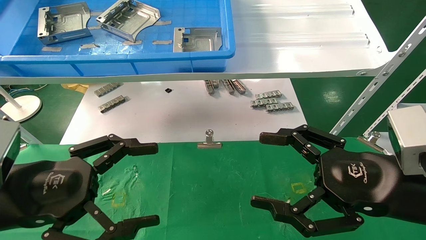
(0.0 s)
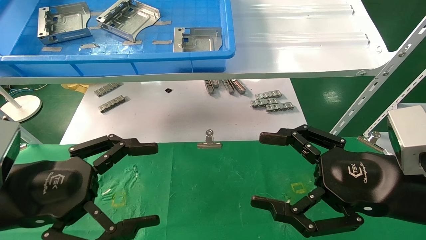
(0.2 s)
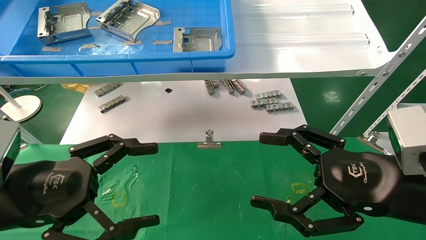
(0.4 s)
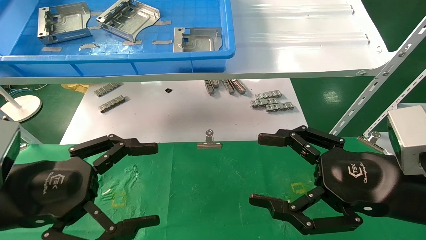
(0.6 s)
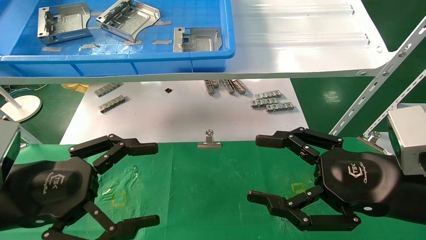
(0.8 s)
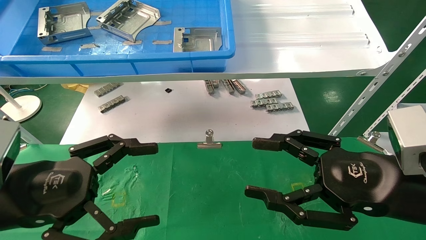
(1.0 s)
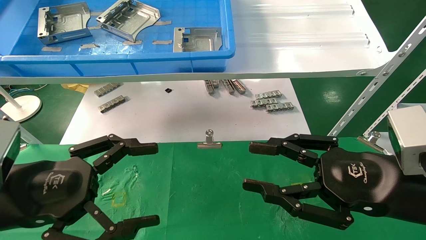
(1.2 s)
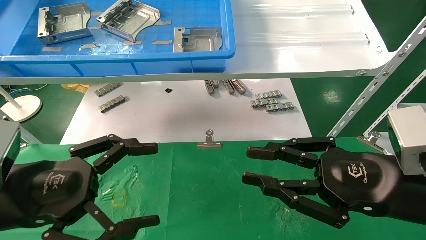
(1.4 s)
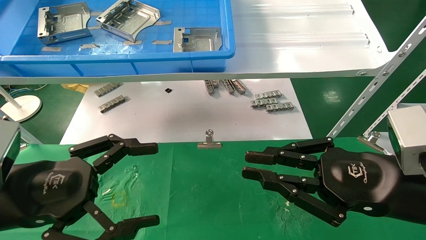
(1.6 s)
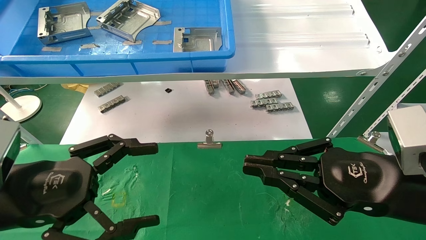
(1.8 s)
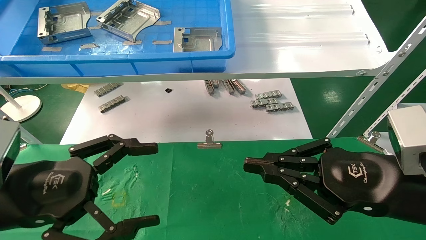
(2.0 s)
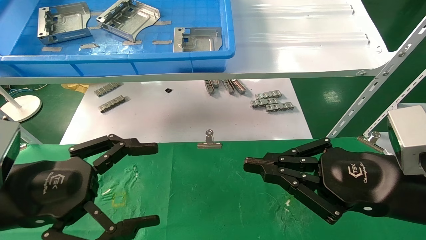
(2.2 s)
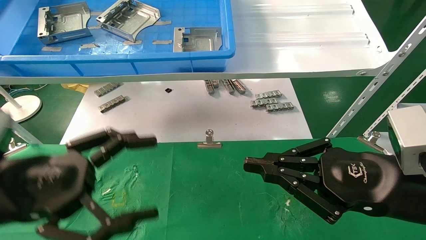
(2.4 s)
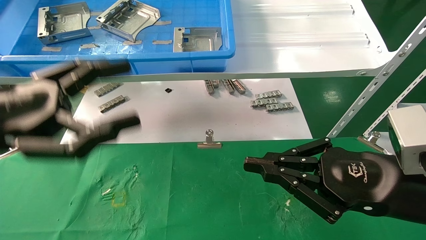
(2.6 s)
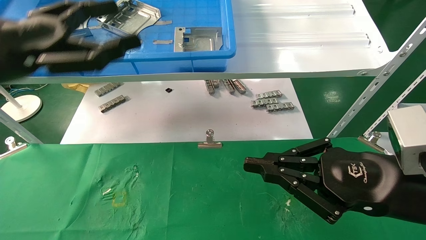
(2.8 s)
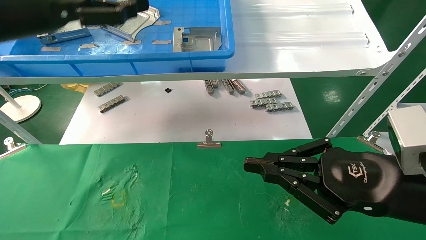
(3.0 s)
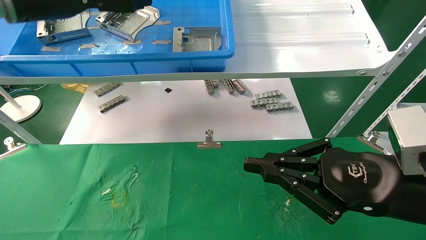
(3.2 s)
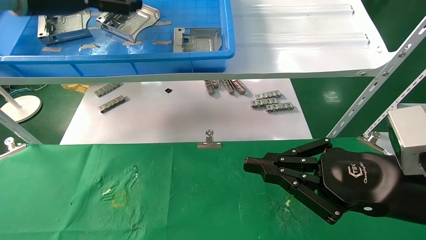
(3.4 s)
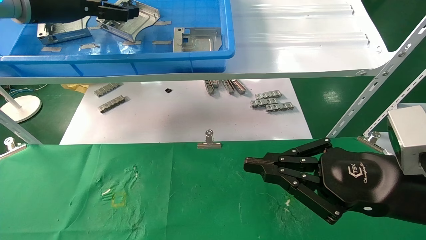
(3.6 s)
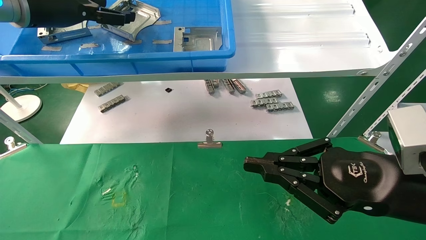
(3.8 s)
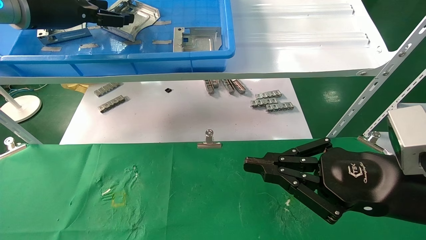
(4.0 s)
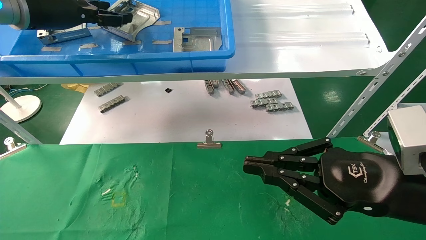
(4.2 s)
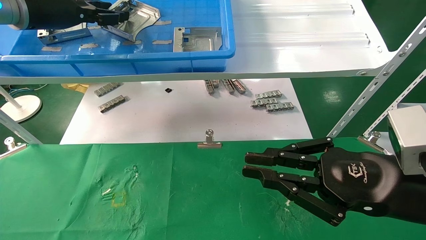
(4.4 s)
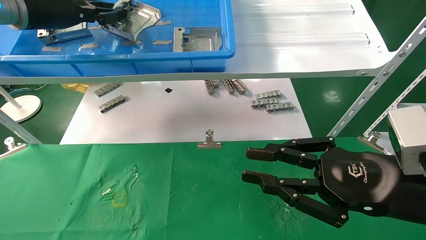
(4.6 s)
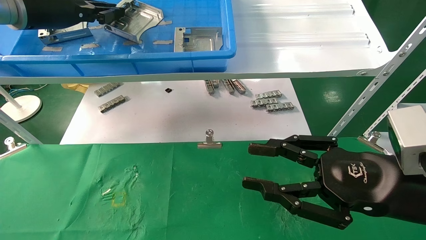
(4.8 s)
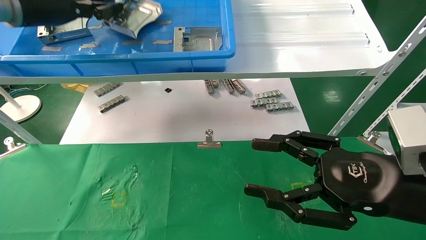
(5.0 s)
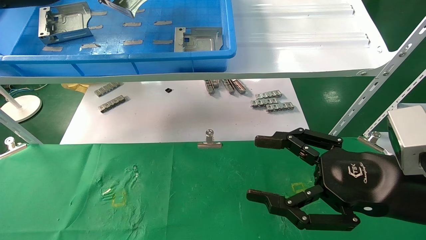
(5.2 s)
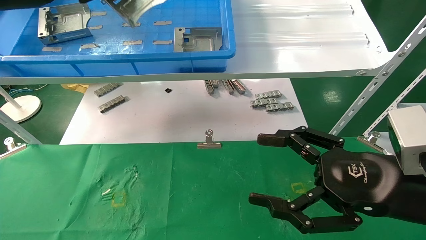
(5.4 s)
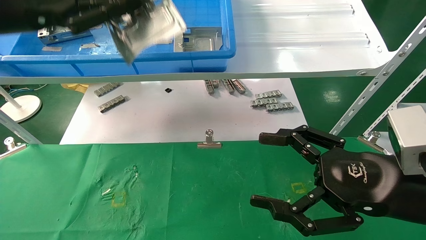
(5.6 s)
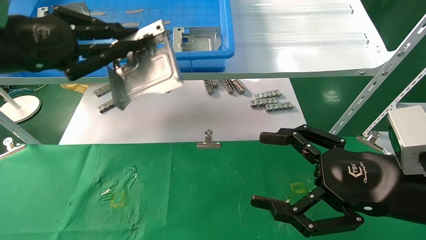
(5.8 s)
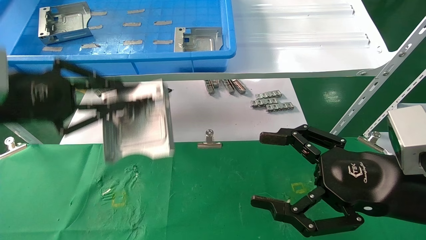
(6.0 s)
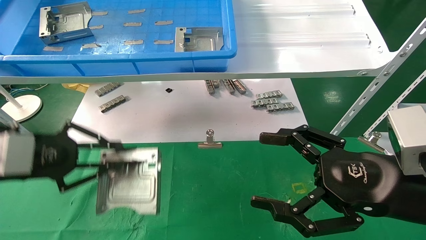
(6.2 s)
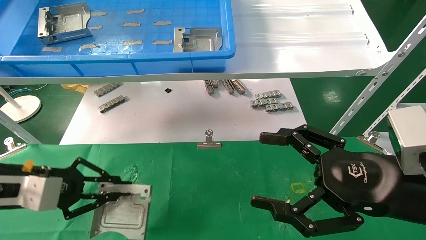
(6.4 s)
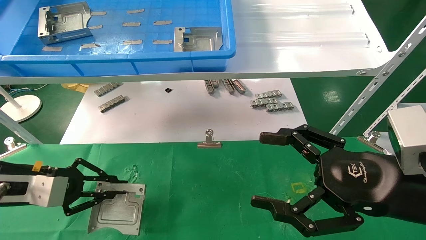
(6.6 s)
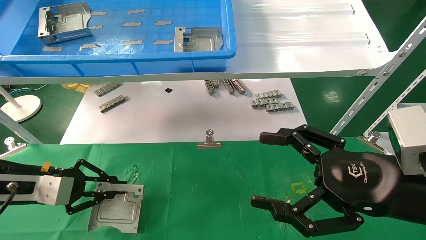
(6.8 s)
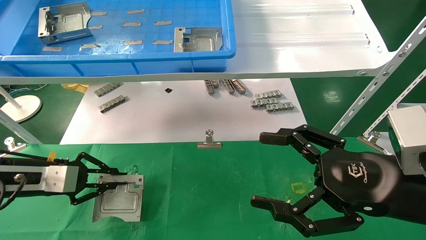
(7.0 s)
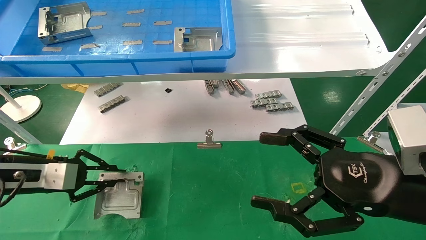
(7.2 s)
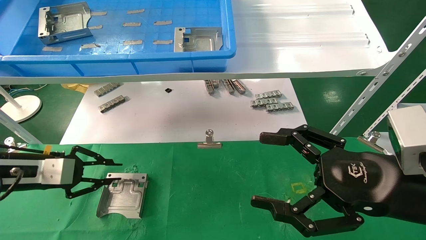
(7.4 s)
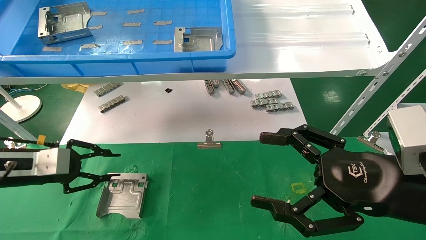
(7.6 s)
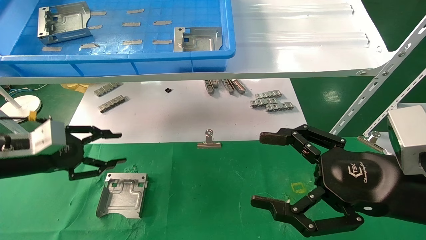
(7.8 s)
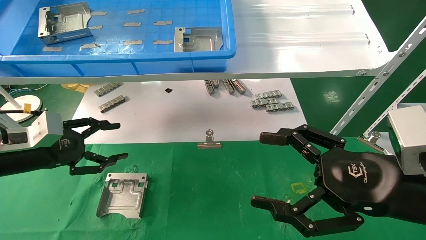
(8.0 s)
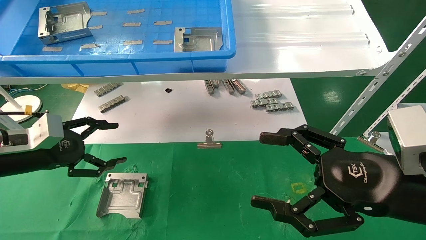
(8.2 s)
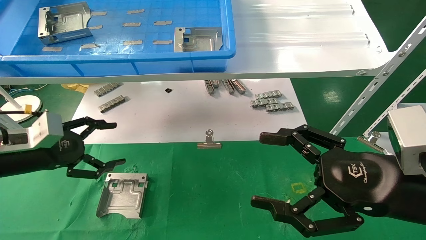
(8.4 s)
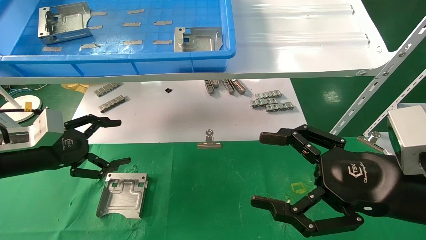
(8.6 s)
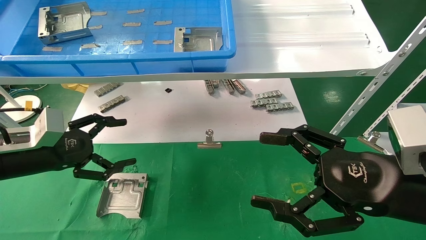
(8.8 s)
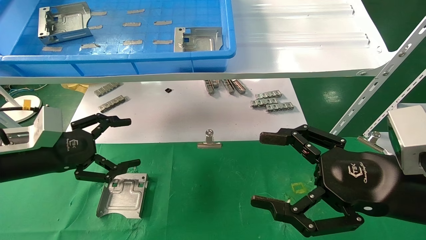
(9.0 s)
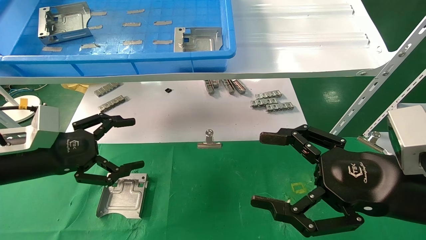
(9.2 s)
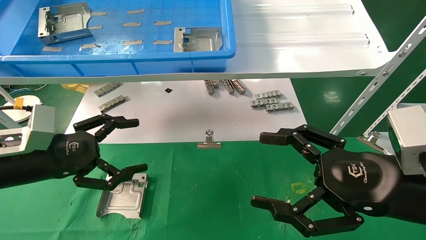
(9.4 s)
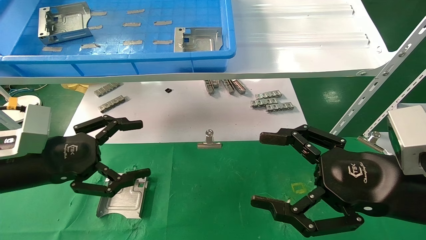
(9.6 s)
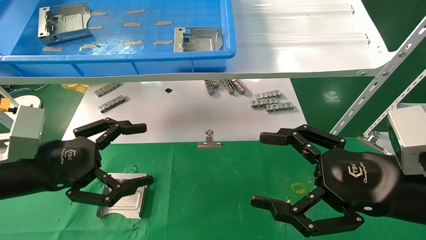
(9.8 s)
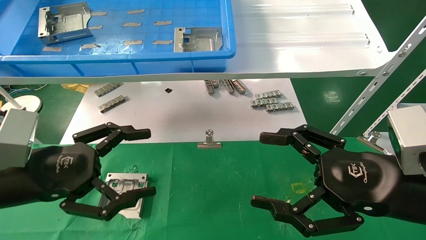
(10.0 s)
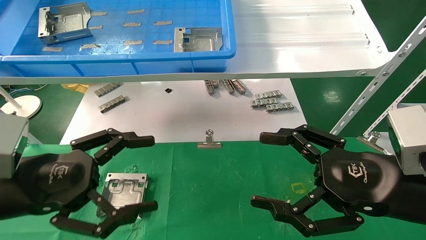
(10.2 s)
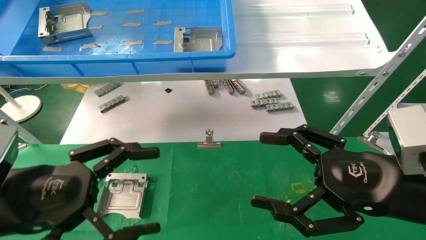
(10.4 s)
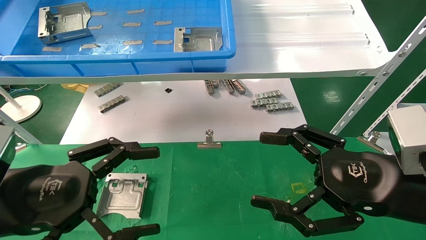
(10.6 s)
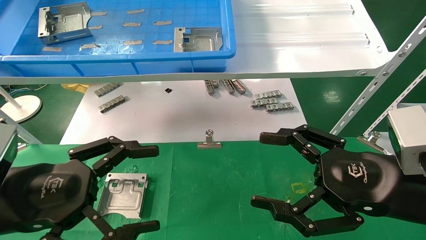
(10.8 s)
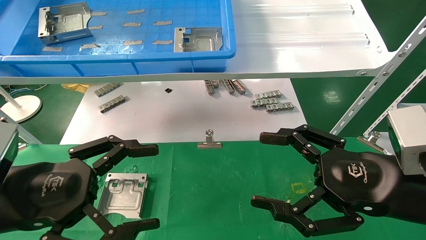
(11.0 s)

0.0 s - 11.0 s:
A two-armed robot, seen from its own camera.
Task of the whole recording: use the mechanical arm to pick up the parts and place them on the table.
Step, 2.4 s - 5.2 s: Pick up the hard drive bracket from the feeding area.
Step, 5.4 s - 8.0 s: Place the hard drive bracket into the box.
0.0 s - 1.6 s: The right gripper closes.
1.6 s - 3.2 s: The left gripper heads upward and forward, covering roughly 30 cm.
3.2 s - 4.8 s: The left gripper closes.
4.8 s - 6.2 s: The right gripper opens up. Meanwhile the left gripper moves downward and backward, roughly 25 cm.
6.2 s - 7.8 s: The left gripper goes roughly 10 cm downward and forward.
7.8 s - 9.4 s: The left gripper moves to the right, some 5 cm, and opens up.
9.4 s - 11.0 s: The left gripper travels backward by some 10 cm.
